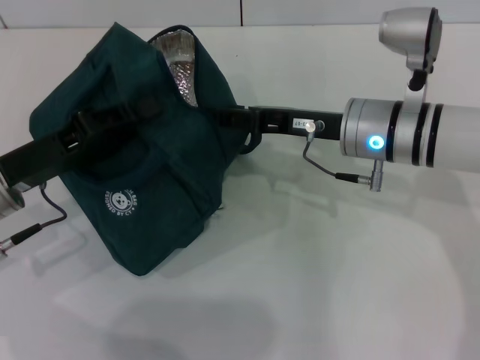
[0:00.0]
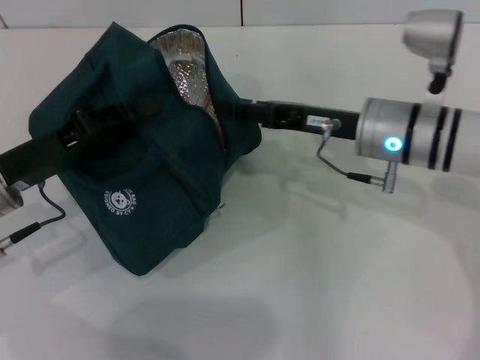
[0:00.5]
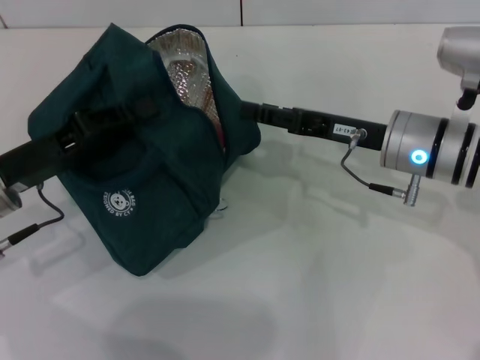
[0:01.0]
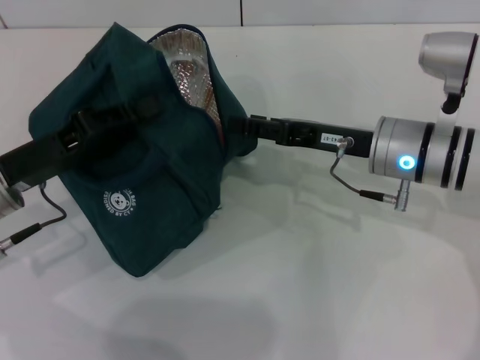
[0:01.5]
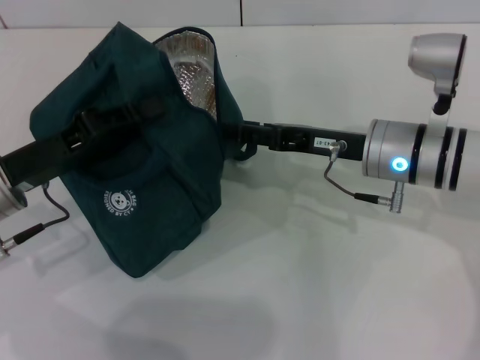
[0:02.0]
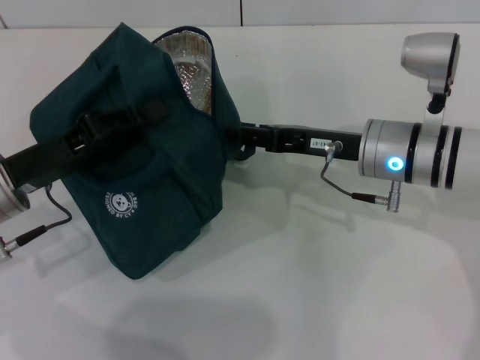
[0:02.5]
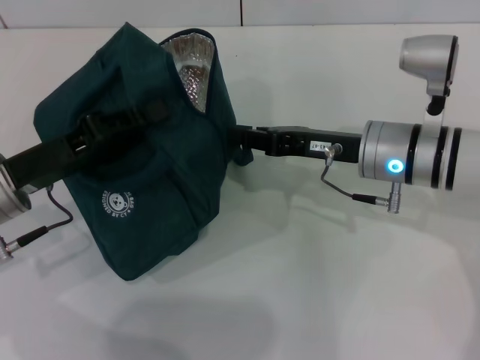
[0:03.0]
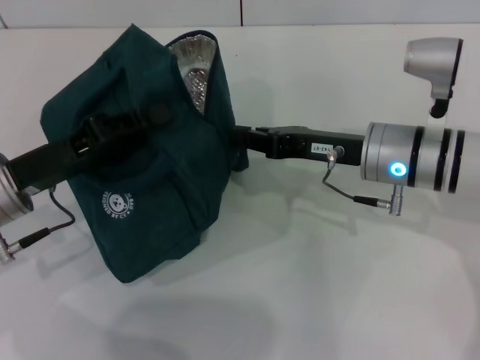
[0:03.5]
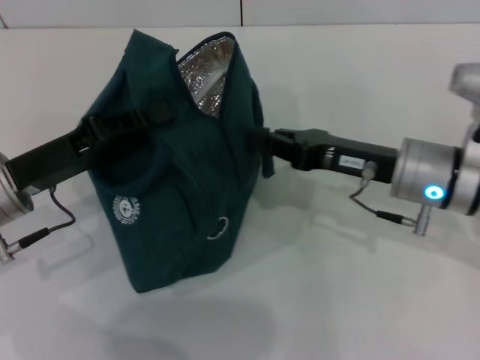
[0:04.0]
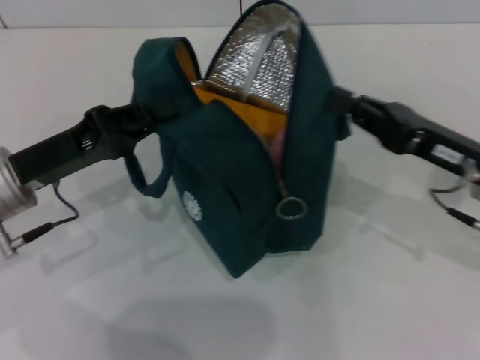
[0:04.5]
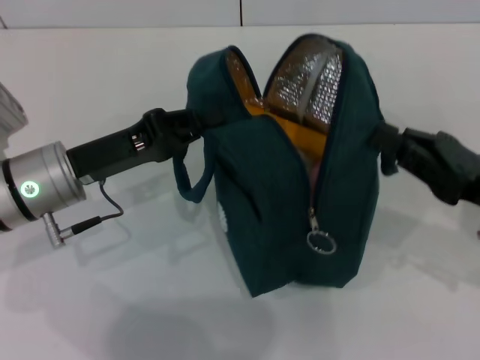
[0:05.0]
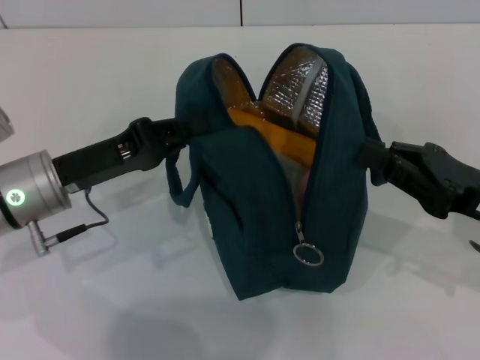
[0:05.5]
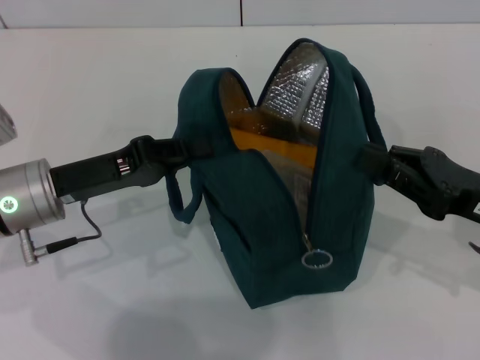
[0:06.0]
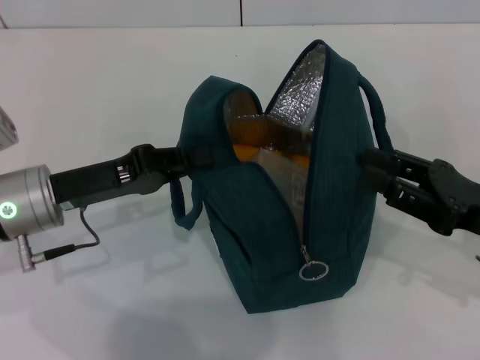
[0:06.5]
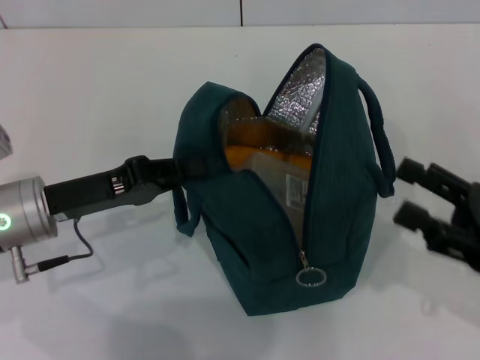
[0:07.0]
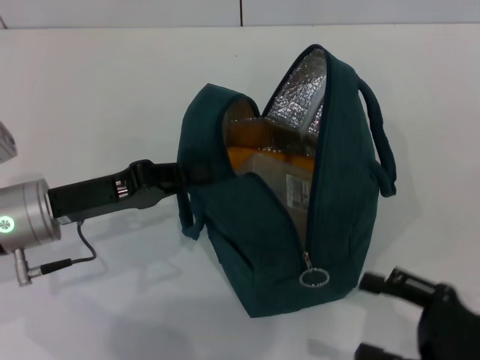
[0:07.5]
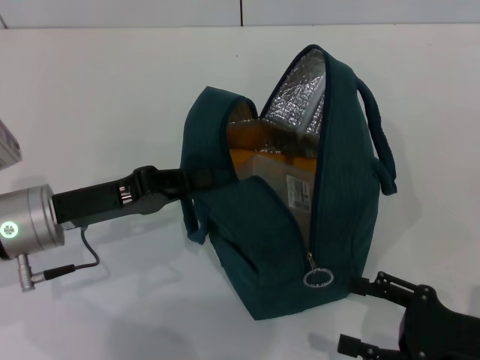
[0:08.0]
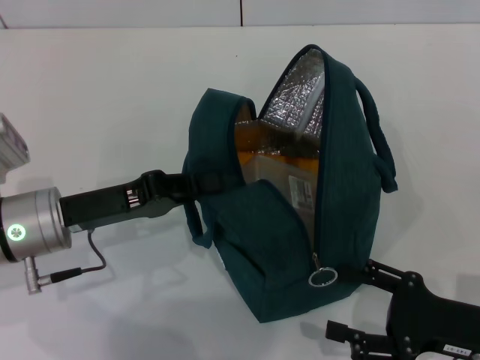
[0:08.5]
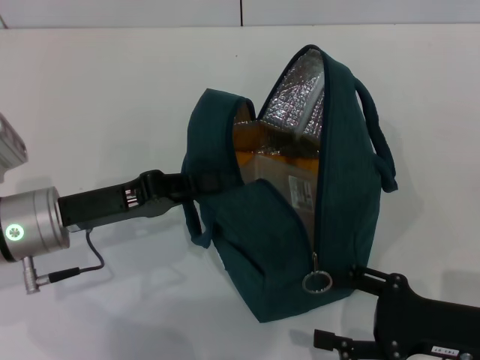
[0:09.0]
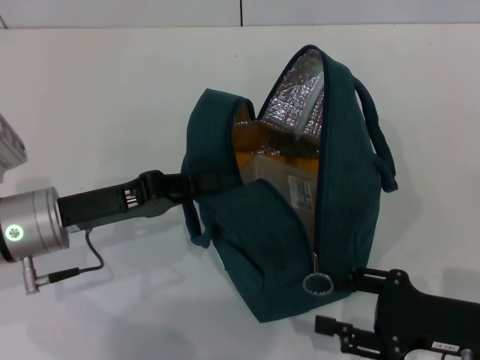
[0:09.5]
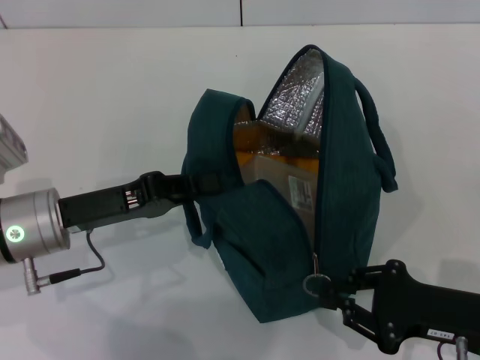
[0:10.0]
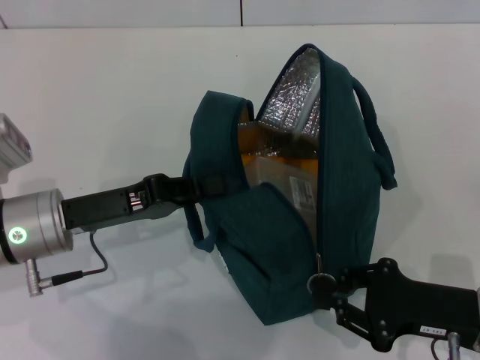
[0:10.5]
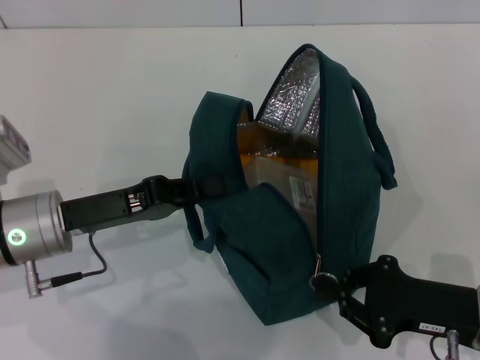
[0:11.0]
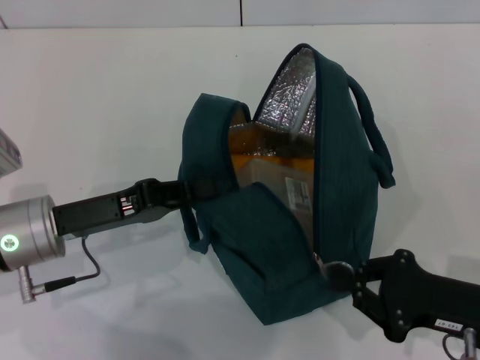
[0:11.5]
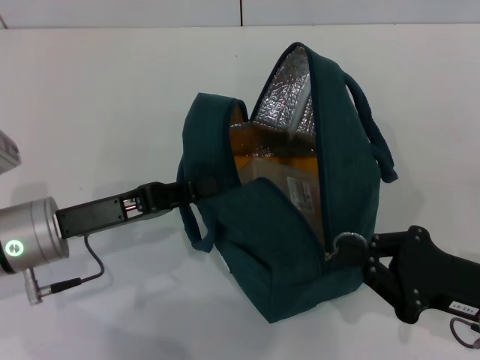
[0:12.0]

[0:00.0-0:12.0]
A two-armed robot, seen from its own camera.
Step, 0:00.0 to 0:06.5: Hold the lunch bag with your right hand.
0:00.0 to 0:02.0: The grippers move only a little.
0:02.0 to 0:04.0: The right gripper closes.
0:04.0 to 0:06.0: The right gripper moves to the right and backward, approximately 10 cm.
0:06.0 to 0:08.0: The right gripper shifts about 10 cm backward and downward, and opens its fingers.
0:08.0 to 0:10.0: The right gripper closes up.
0:10.0 to 0:12.0: The grippers make only small movements.

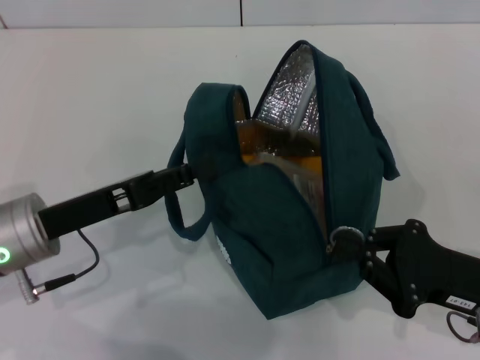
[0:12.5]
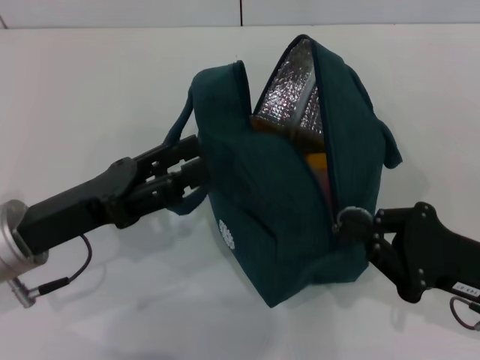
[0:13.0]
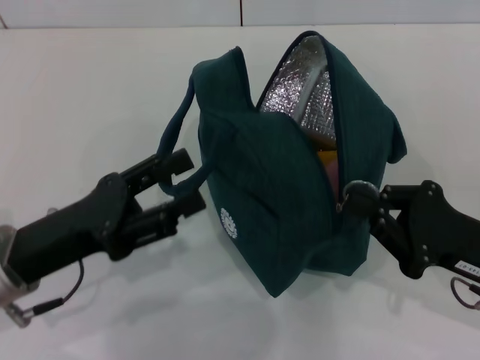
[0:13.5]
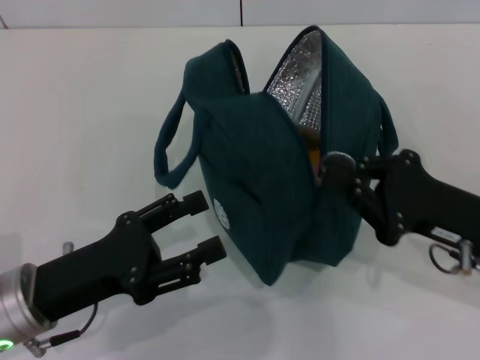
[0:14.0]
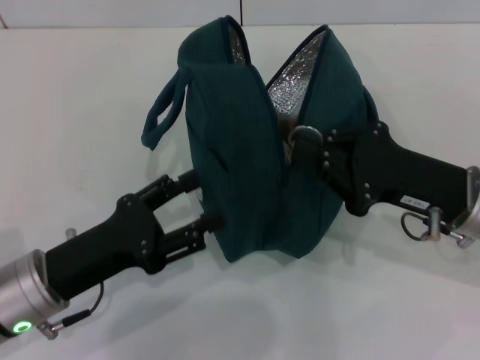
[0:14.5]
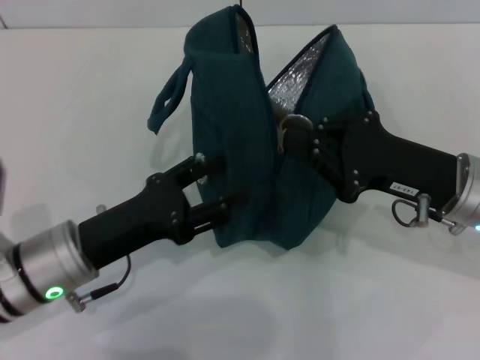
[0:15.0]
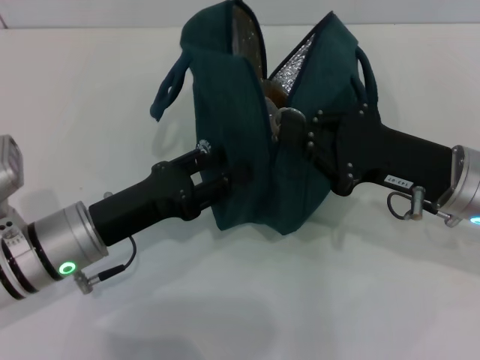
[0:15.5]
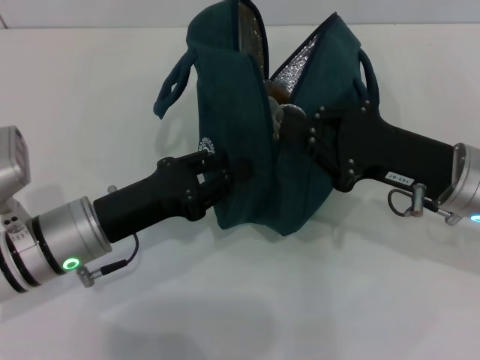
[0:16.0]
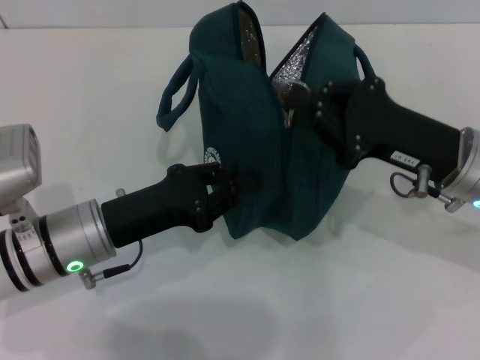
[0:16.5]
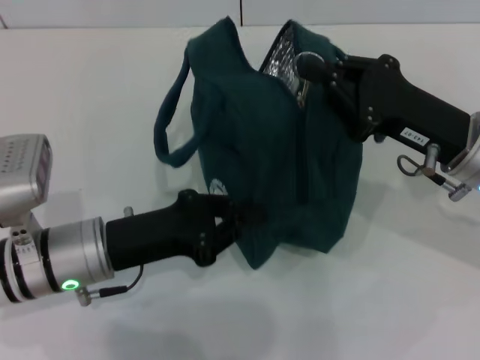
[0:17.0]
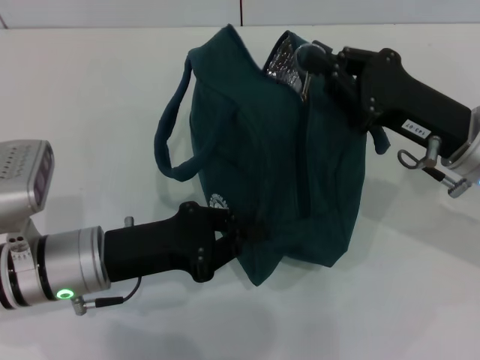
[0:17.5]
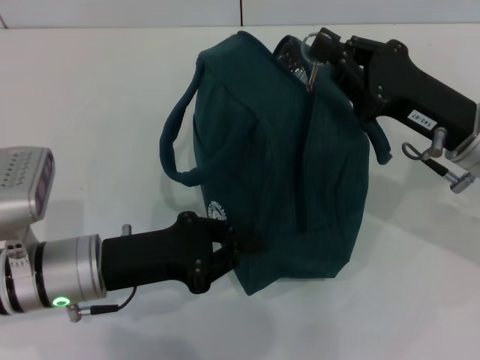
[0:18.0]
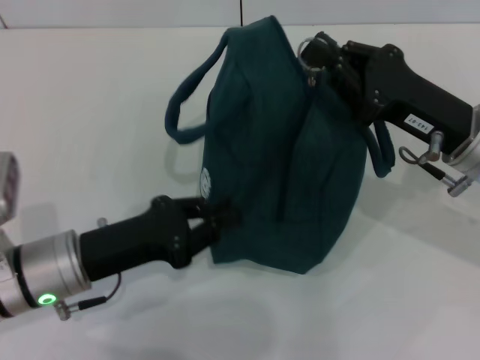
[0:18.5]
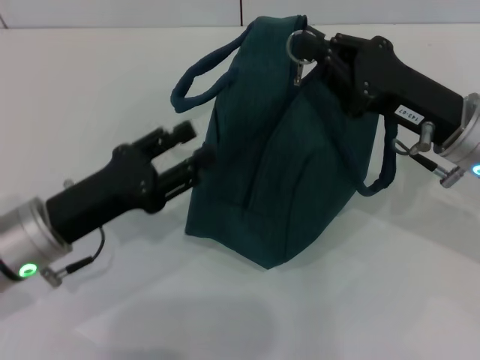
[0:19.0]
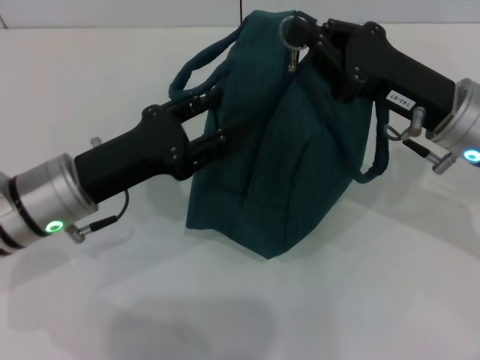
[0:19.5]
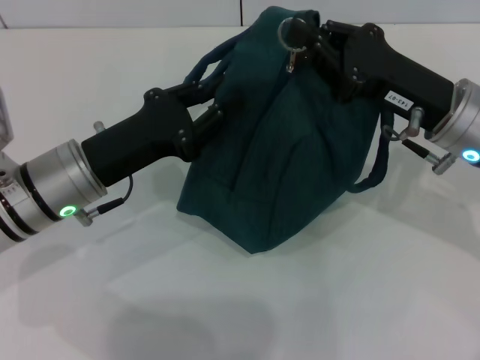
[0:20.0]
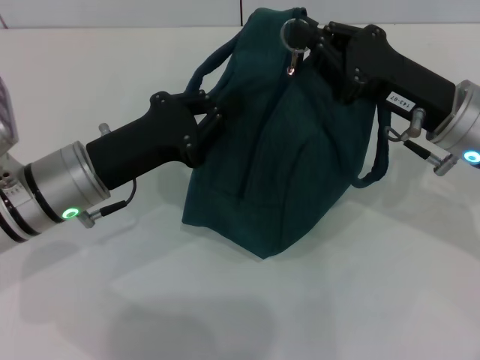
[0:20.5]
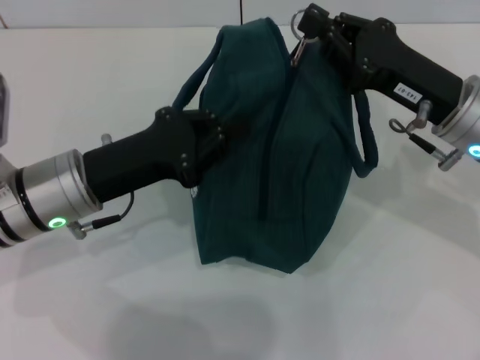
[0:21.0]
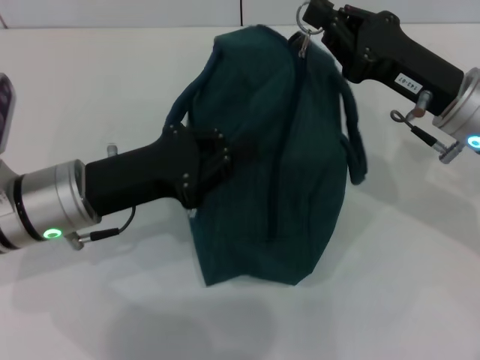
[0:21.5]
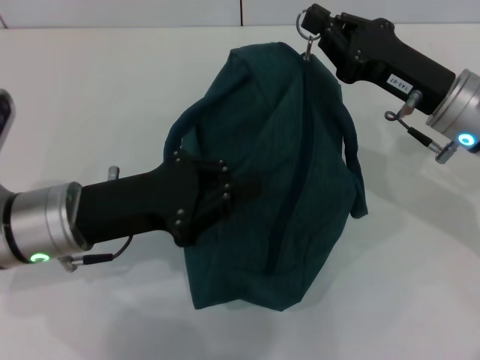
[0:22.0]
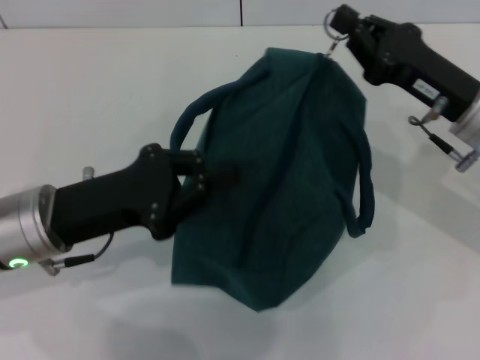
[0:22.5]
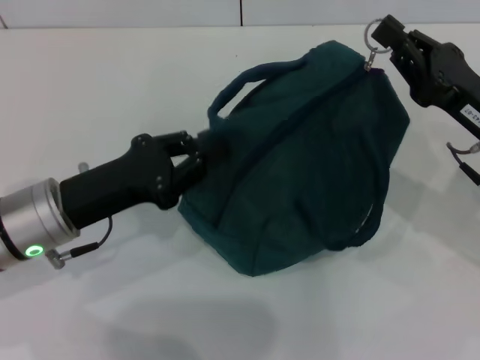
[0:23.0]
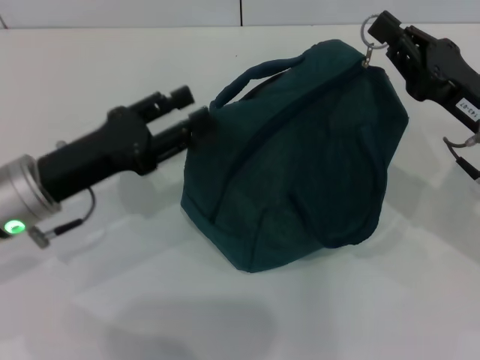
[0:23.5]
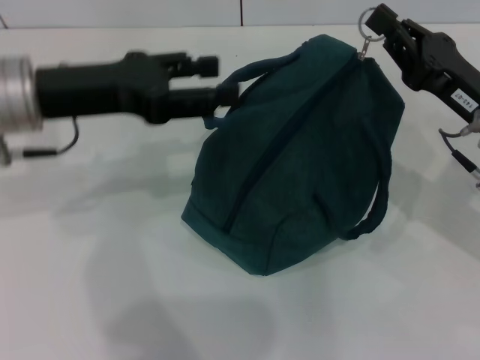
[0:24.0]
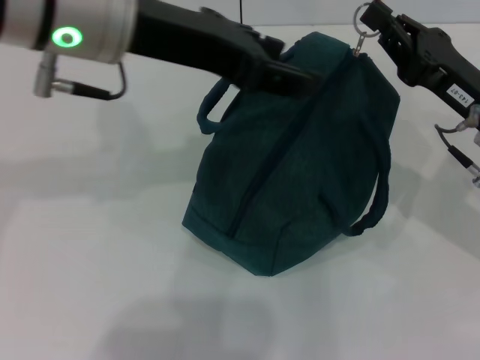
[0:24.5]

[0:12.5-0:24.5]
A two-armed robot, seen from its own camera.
0:12.5 to 0:14.5: The right gripper shifts about 5 cm forward. The left gripper ends up approximately 5 cm from where it was, and opens.
0:14.5 to 0:16.5: The left gripper heads forward, covering about 5 cm, and closes.
0:18.5 to 0:20.5: The left gripper heads forward, covering some 5 cm, and opens, then closes again.
0:22.5 to 0:24.5: The left gripper travels upward and to the right by some 20 cm, and opens its fingers.

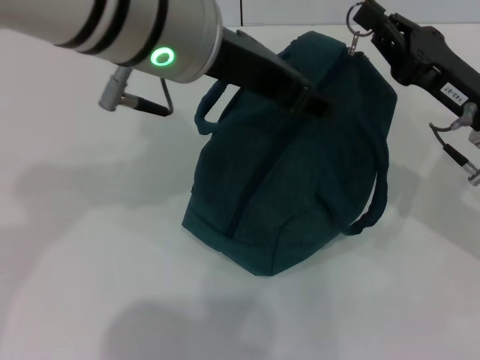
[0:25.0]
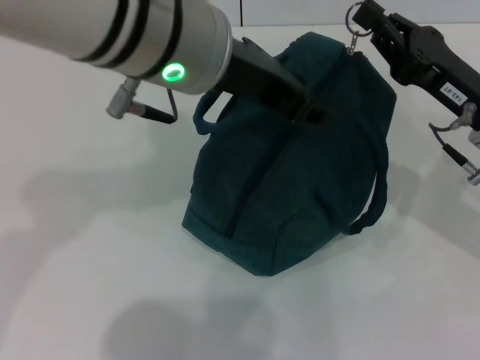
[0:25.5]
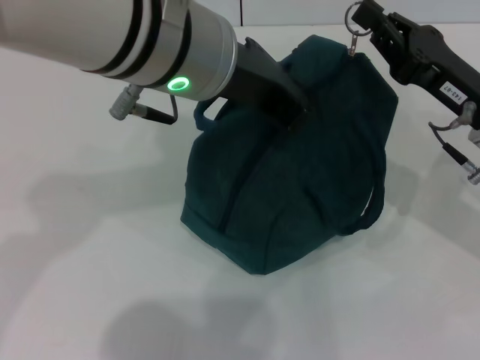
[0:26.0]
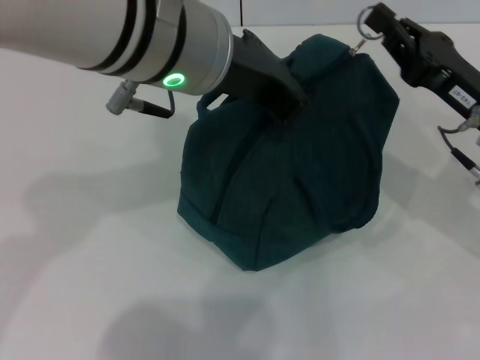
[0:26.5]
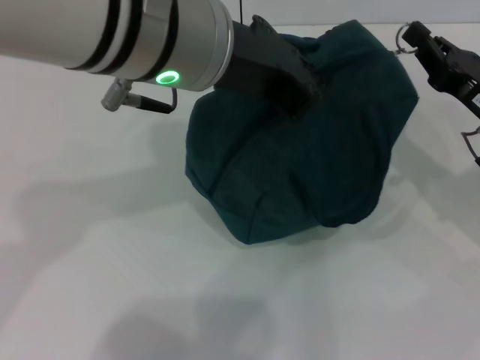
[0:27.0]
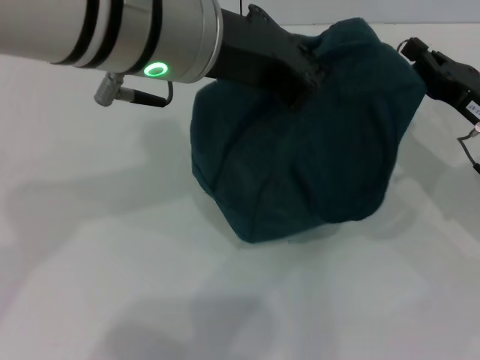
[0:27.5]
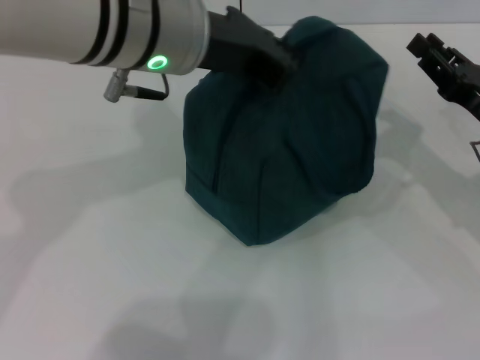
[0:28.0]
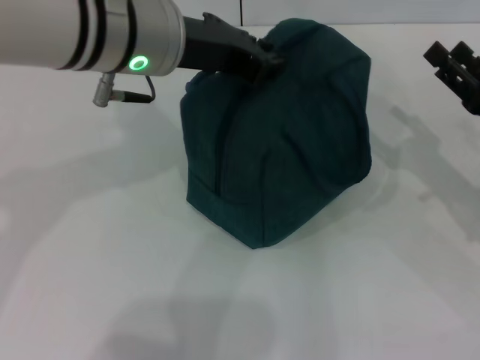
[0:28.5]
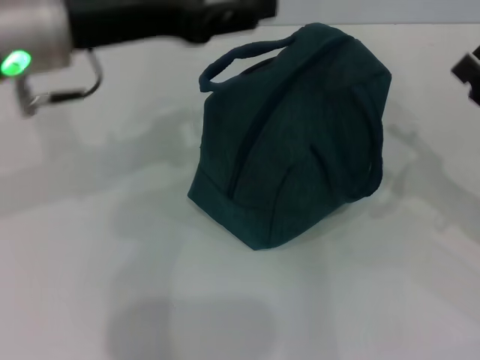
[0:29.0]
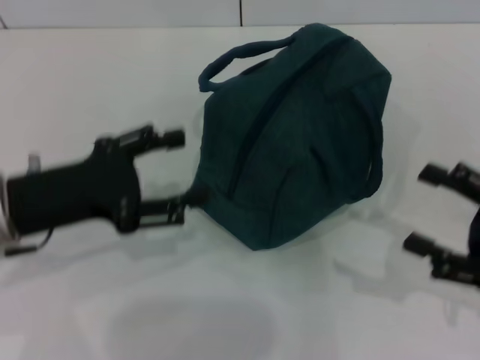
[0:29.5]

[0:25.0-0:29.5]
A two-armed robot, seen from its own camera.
Step, 0:25.0 to 0:27.5: Zip up the lunch bag with your right hand.
Step, 0:28.0 to 0:28.5: Hold the lunch bag with your left hand.
0:25.0 to 0:27.0: The left gripper closes.
0:27.0 to 0:29.5: The left gripper is displaced to the left and downward by approximately 25 cm, and opens up, while the right gripper is displaced backward by about 10 cm, and opens its fingers.
